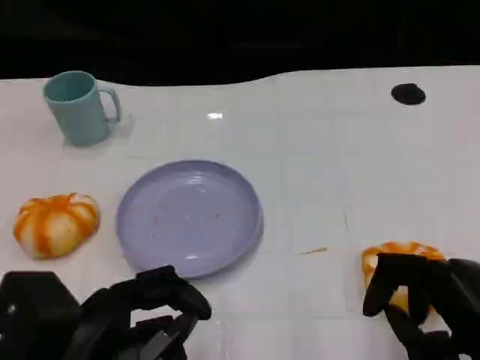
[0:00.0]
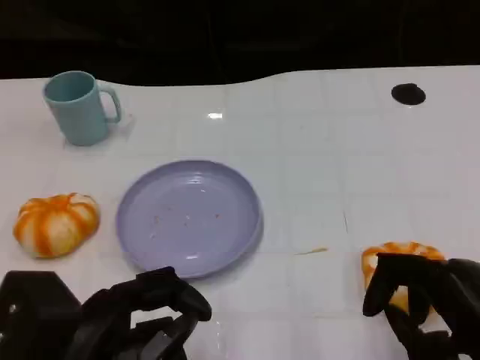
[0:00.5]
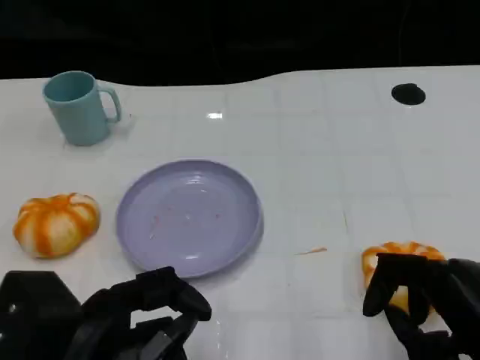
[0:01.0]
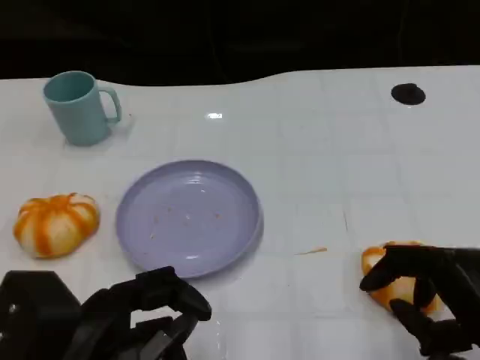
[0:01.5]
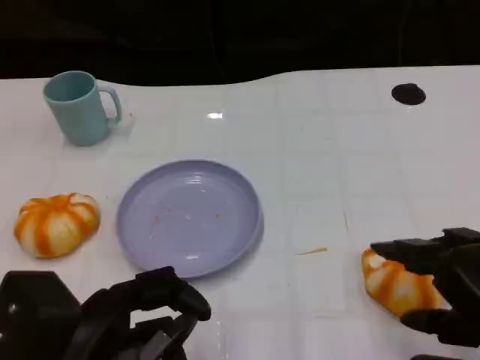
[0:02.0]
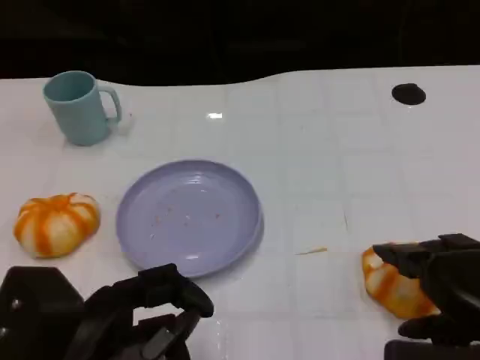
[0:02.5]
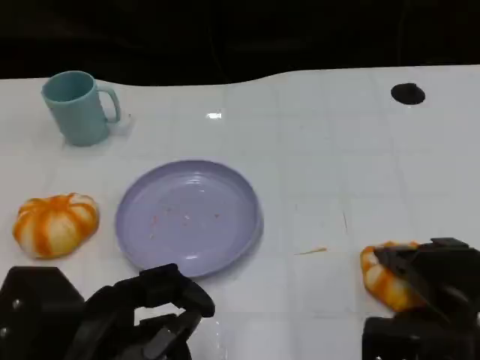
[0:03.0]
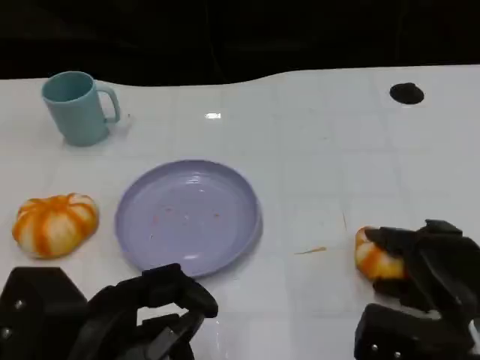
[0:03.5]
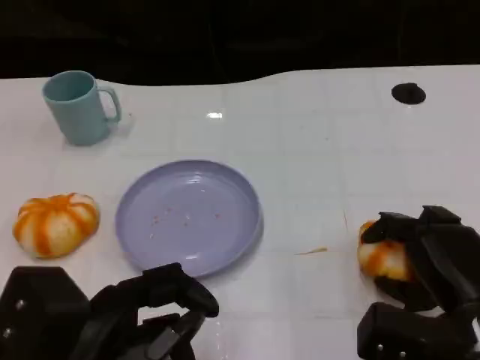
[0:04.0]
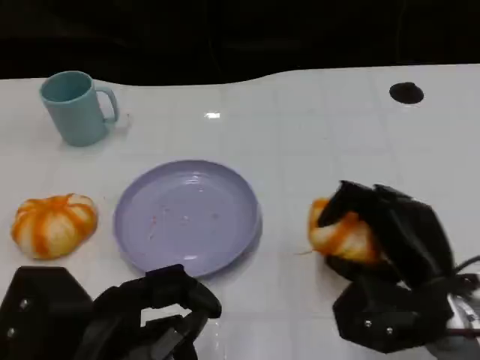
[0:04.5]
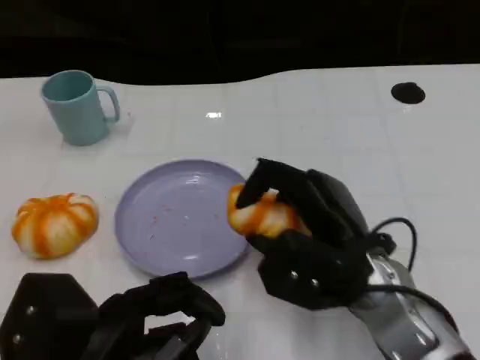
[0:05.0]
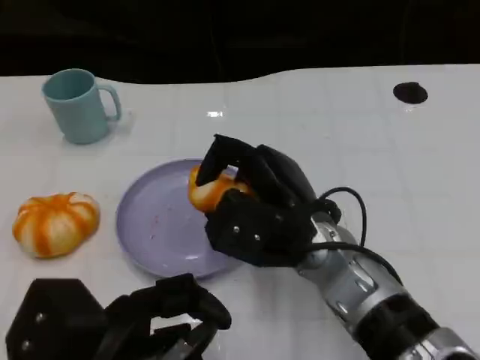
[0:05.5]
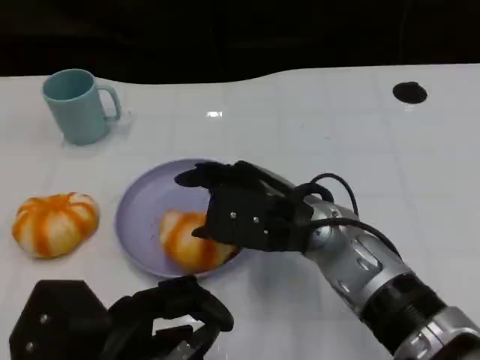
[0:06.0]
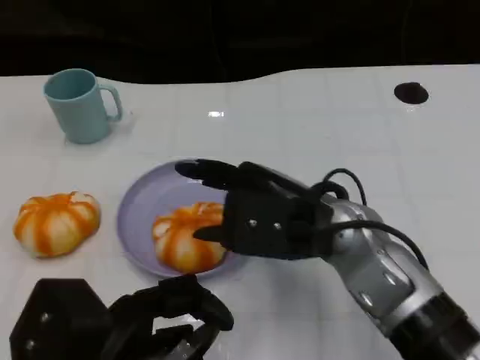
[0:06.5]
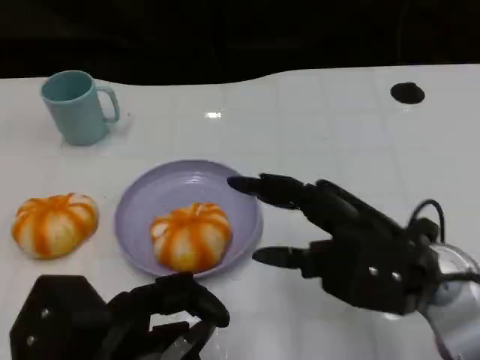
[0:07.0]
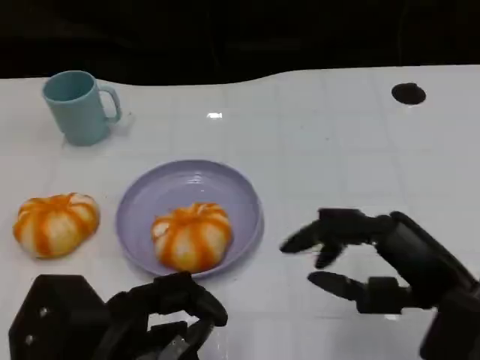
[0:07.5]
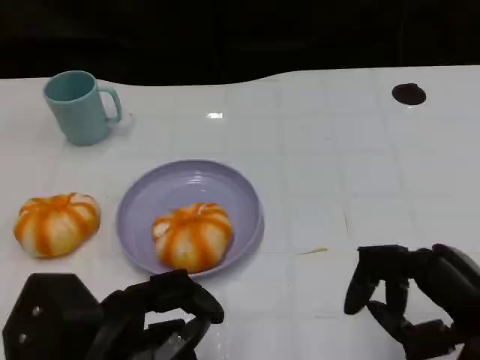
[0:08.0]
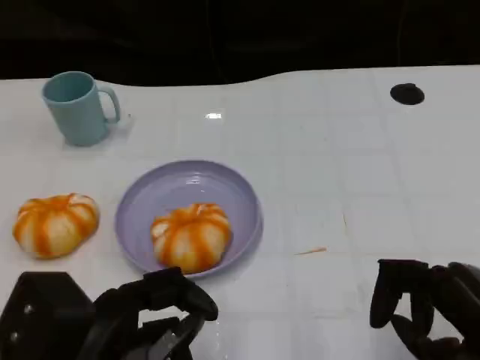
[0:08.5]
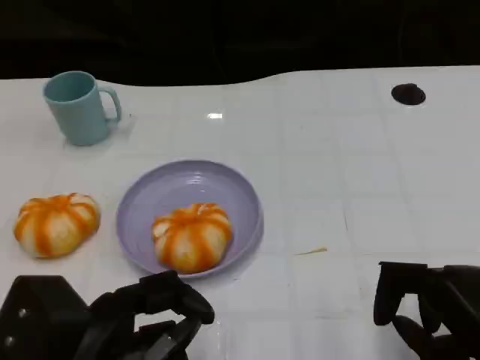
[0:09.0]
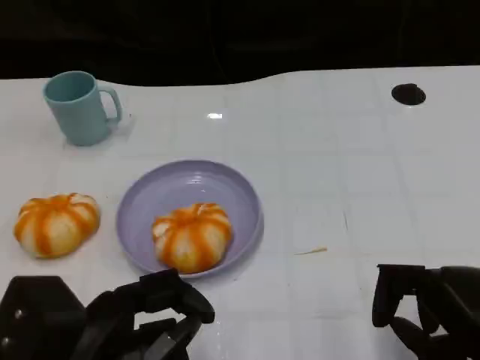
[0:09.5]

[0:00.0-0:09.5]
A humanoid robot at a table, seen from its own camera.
Task of the whole recording: Grasp the bread from the table and place it into the plate.
0:02.0 to 0:04.0: The right hand moves downward and forward, some 10 cm.
0:04.0 to 0:05.5: The right hand is displaced to the left by about 15 cm.
0:05.5 to 0:07.5: The right hand heads to the right and backward, covering some 20 cm.
0:07.5 to 0:09.5: The right hand moves approximately 5 cm.

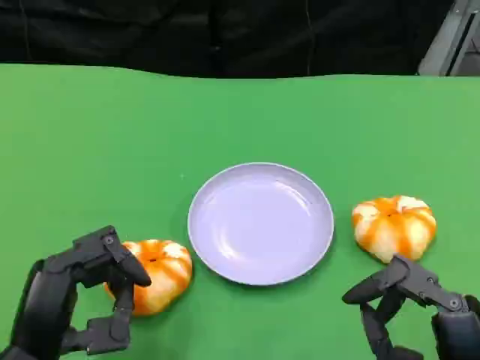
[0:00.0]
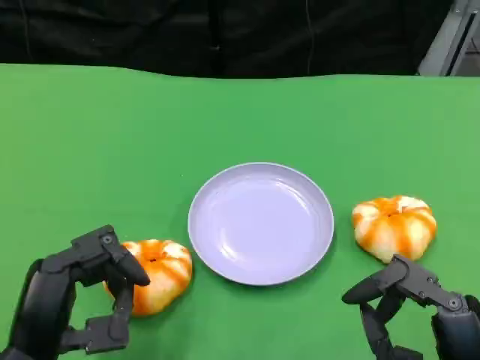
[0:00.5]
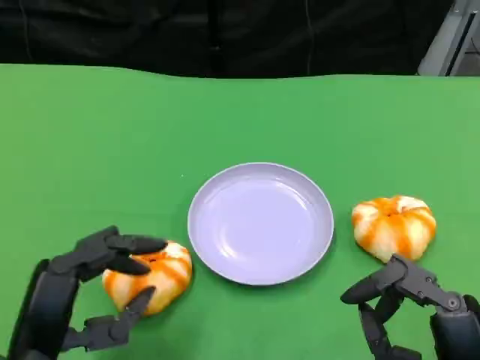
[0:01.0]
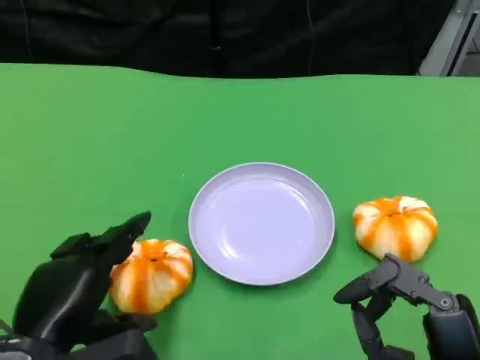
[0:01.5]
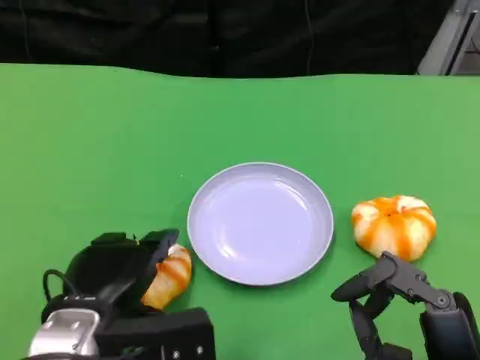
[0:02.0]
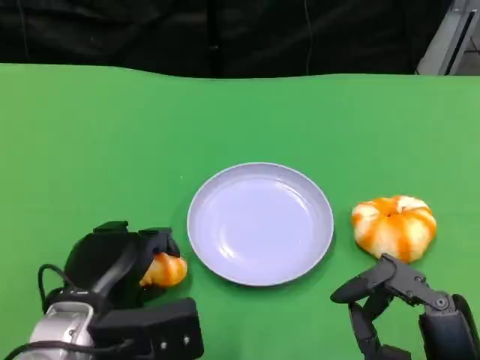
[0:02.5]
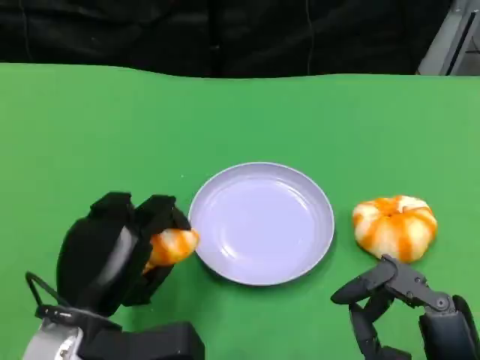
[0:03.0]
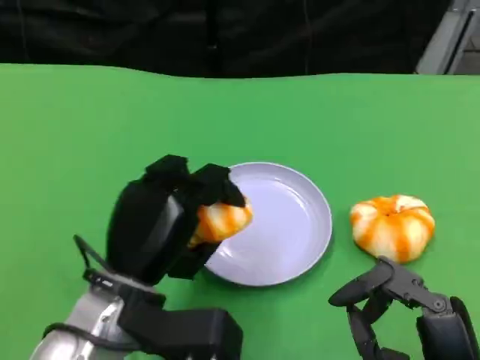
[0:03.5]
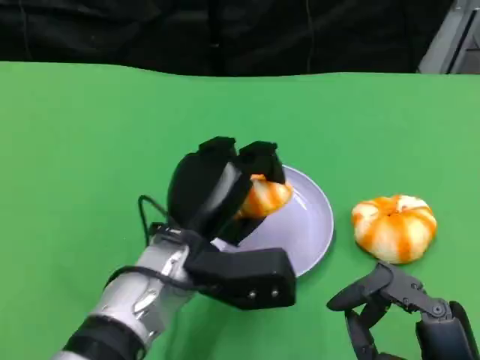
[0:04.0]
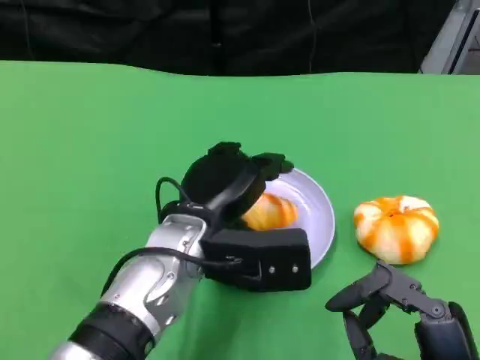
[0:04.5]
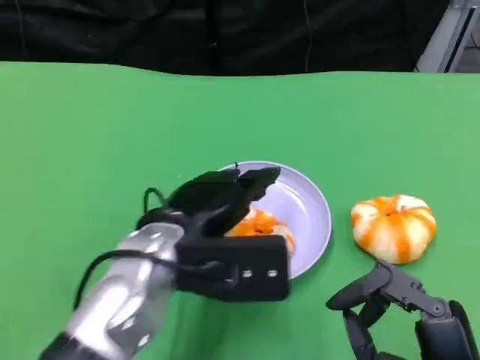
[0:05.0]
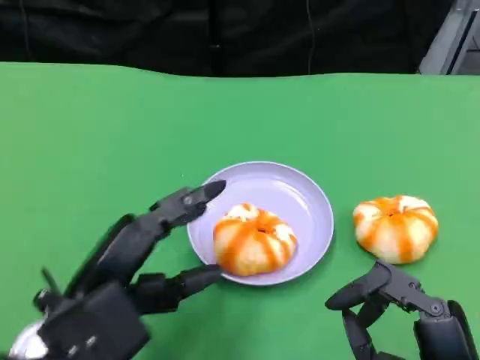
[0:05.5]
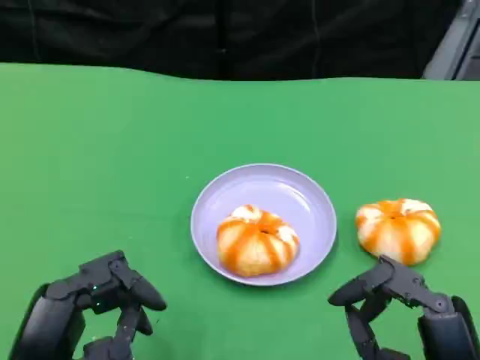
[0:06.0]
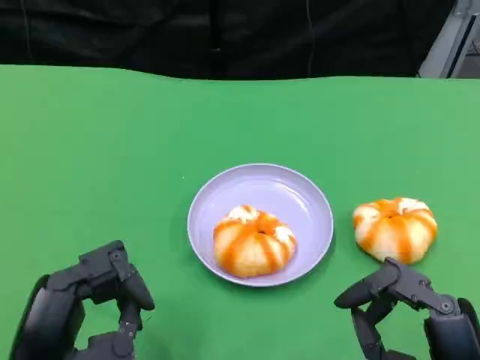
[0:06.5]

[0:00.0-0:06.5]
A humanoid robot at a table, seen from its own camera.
Task of the whole recording: Grasp the bread from the table and place it into the plate.
0:00.0 to 0:02.0: The left hand is displaced forward by about 5 cm.
0:02.0 to 0:04.5: The left hand heads to the right and forward, covering about 10 cm.
0:04.5 to 0:06.5: The left hand is displaced backward and to the left by roughly 20 cm.

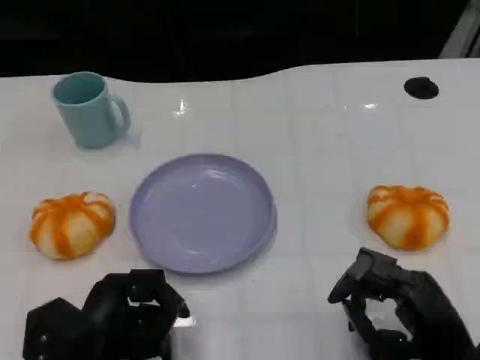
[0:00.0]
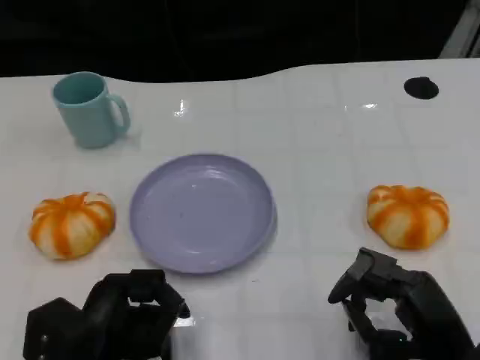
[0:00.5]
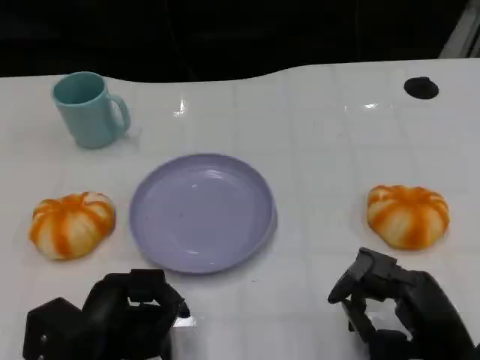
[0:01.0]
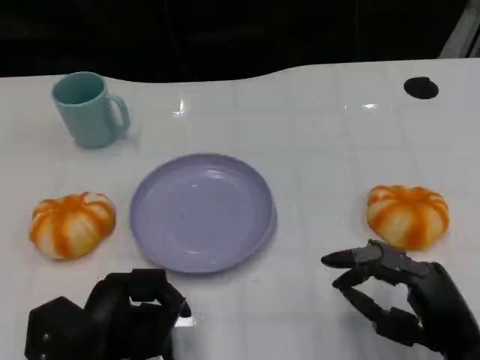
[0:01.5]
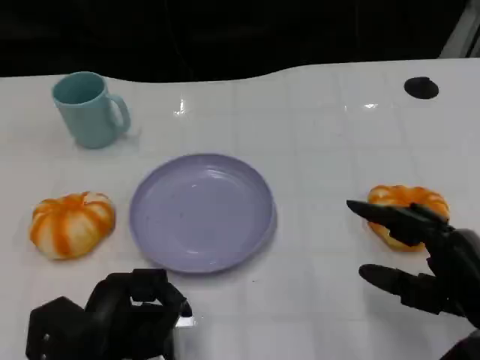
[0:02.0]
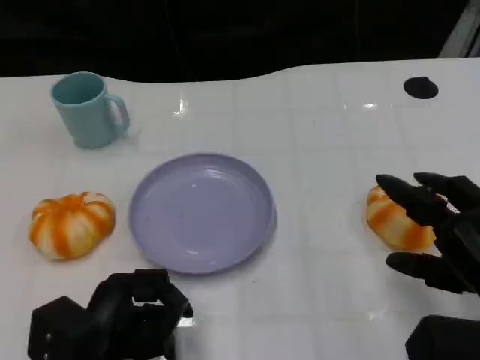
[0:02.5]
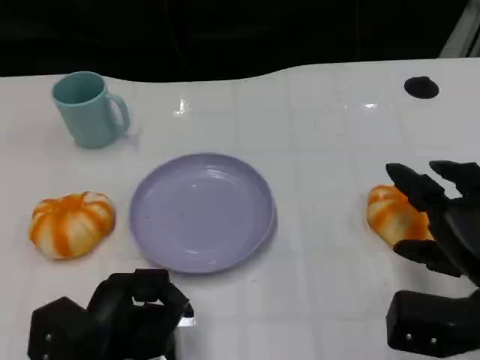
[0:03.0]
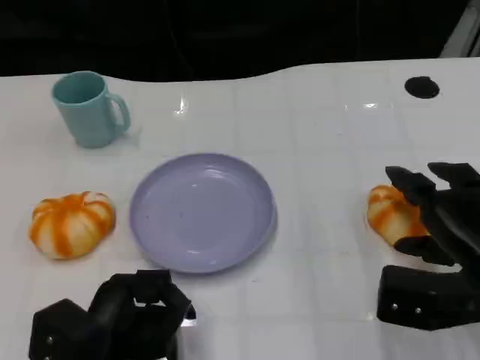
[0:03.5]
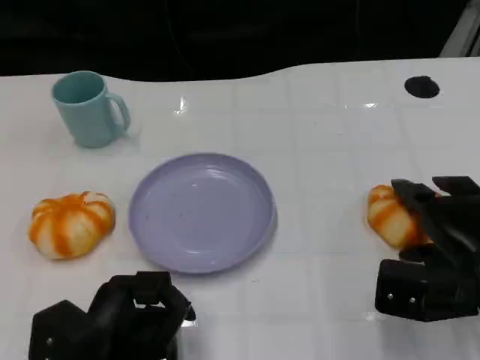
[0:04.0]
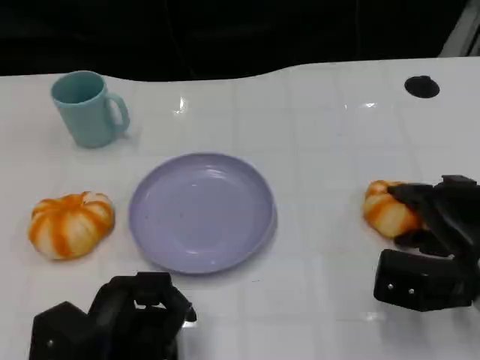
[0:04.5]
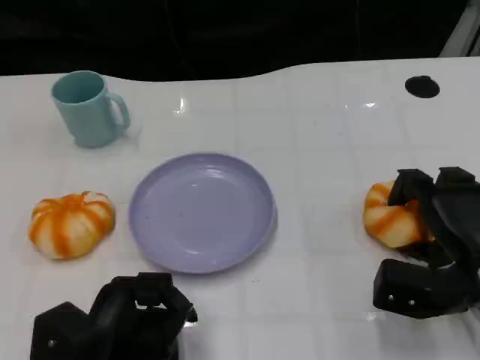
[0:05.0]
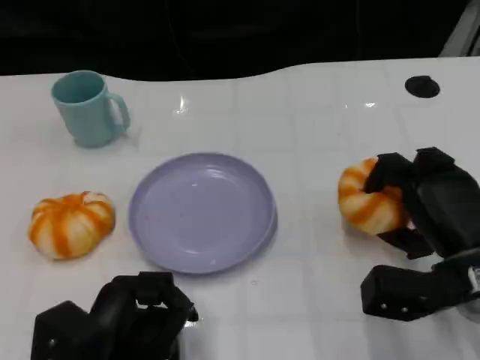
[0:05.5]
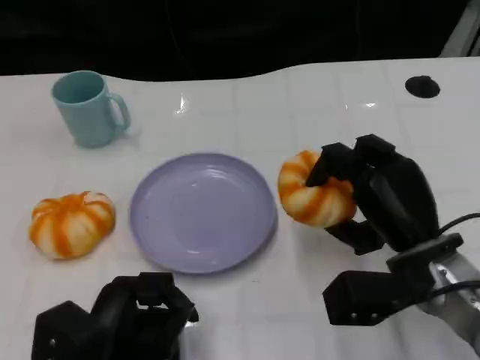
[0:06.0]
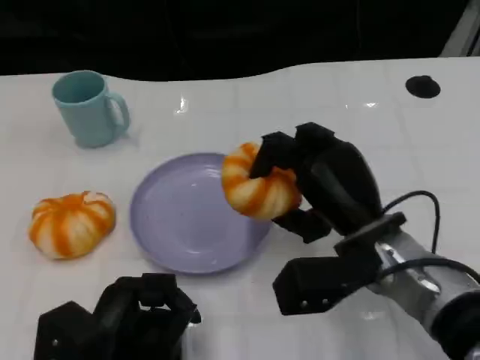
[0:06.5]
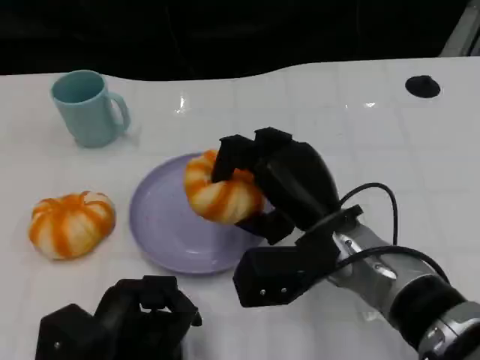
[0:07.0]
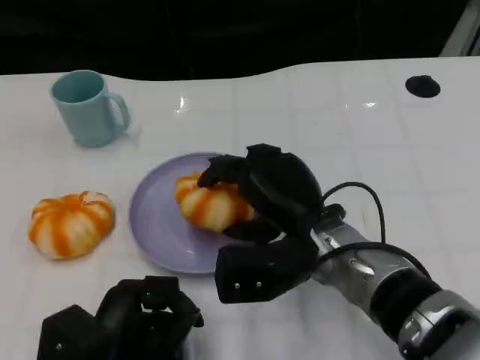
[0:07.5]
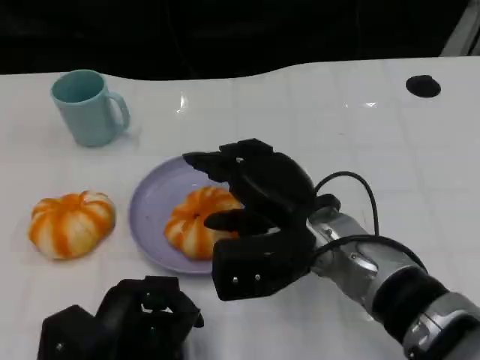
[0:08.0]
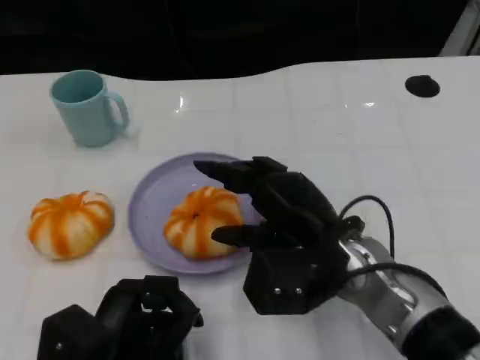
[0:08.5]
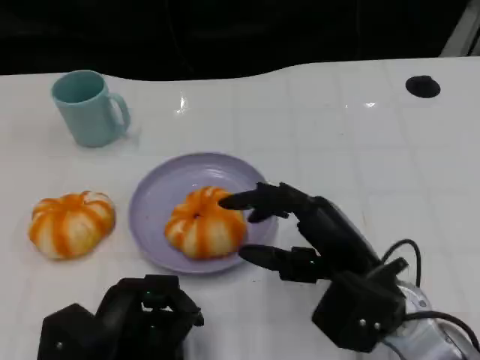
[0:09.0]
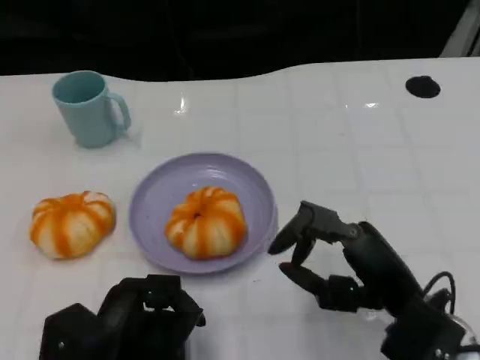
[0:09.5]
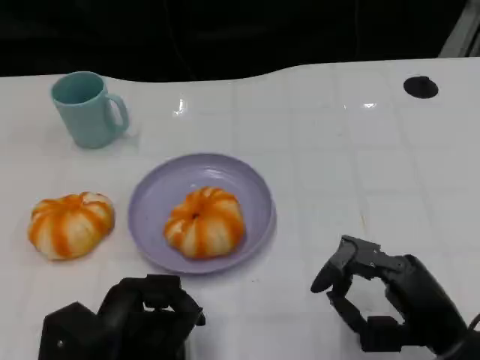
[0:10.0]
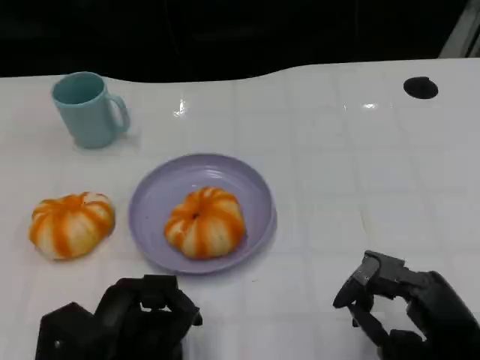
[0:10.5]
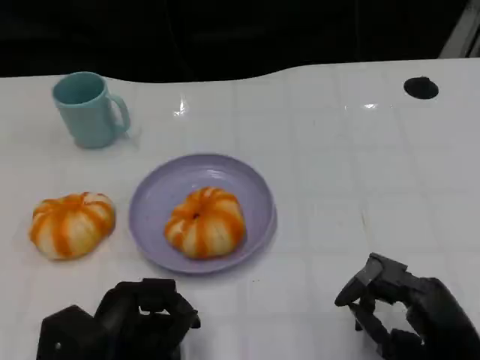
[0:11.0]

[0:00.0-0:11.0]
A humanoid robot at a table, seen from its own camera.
Task of the whole recording: Grasp the bread from the table and place it into the plate.
0:00.0 to 0:02.0: The right hand shifts by about 5 cm.
0:02.0 to 0:03.5: The right hand goes approximately 5 cm forward.
0:05.5 to 0:07.5: The right hand is displaced to the left by approximately 15 cm.
0:07.5 to 0:09.0: The right hand shifts roughly 10 cm to the right and backward.
0:09.0 to 0:11.0: The right hand heads to the right, backward and downward, covering roughly 10 cm.
